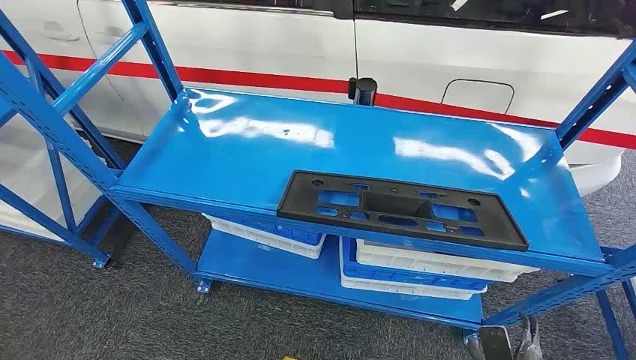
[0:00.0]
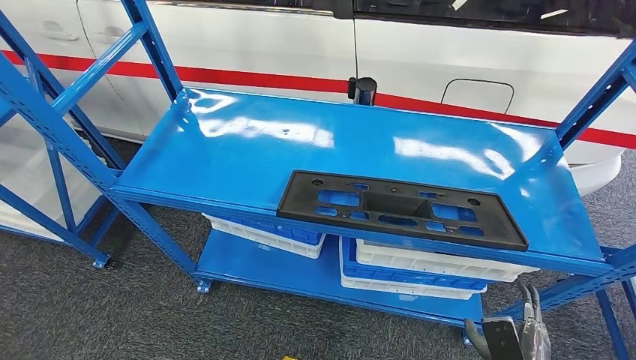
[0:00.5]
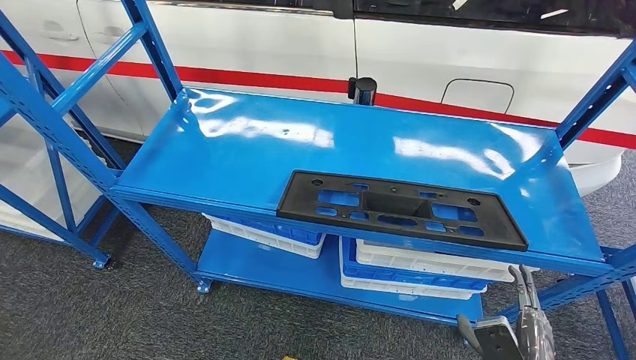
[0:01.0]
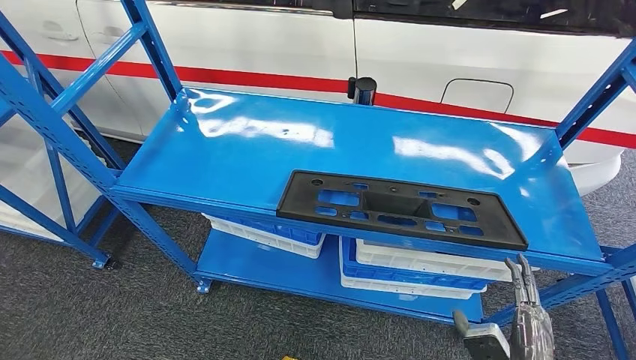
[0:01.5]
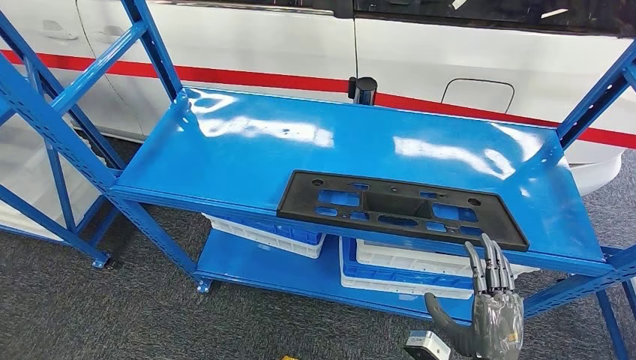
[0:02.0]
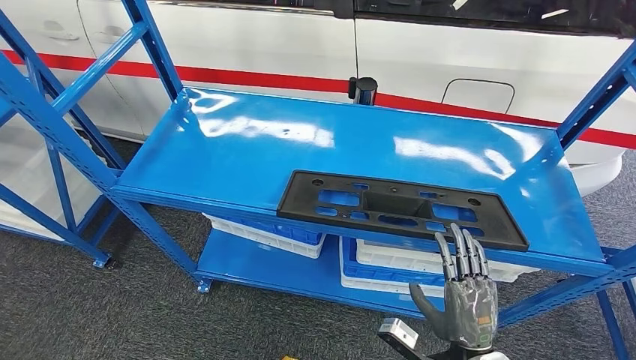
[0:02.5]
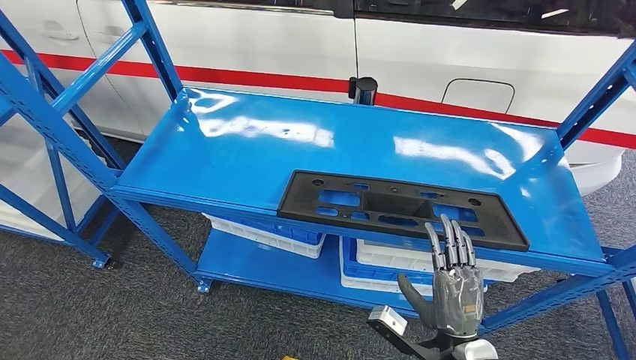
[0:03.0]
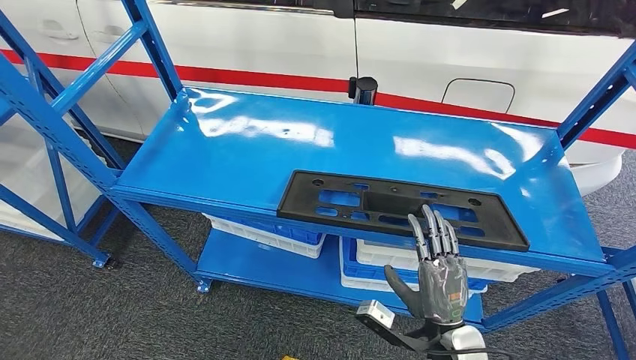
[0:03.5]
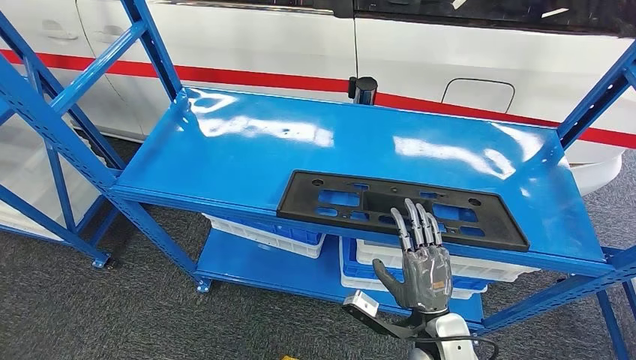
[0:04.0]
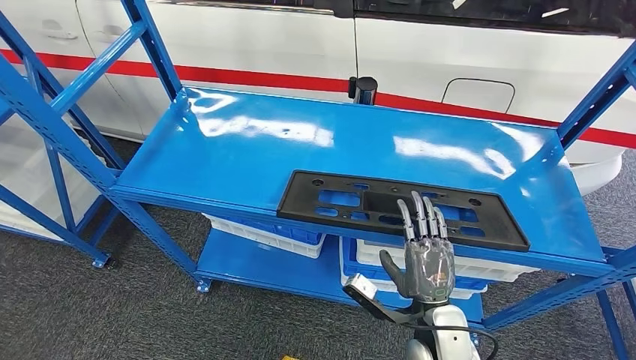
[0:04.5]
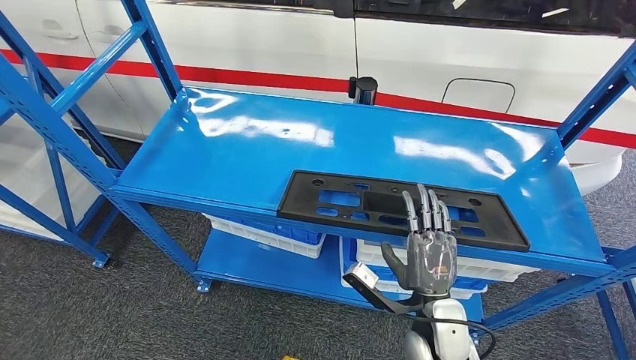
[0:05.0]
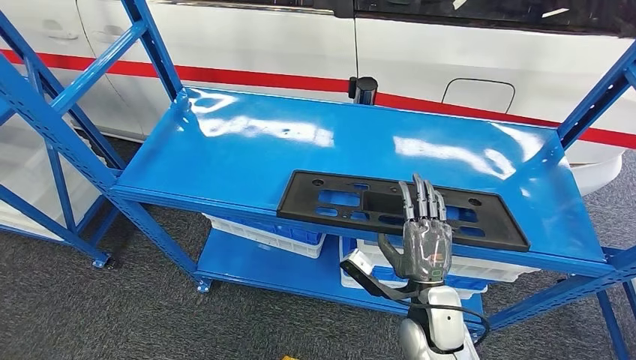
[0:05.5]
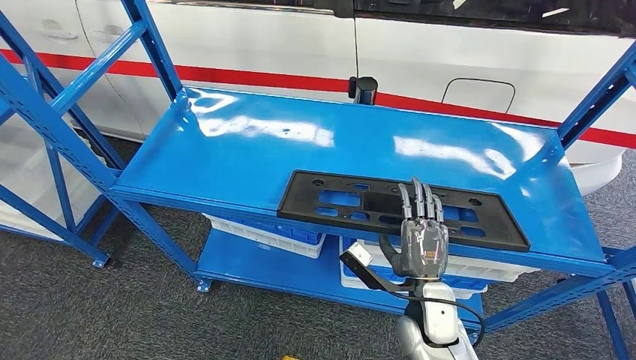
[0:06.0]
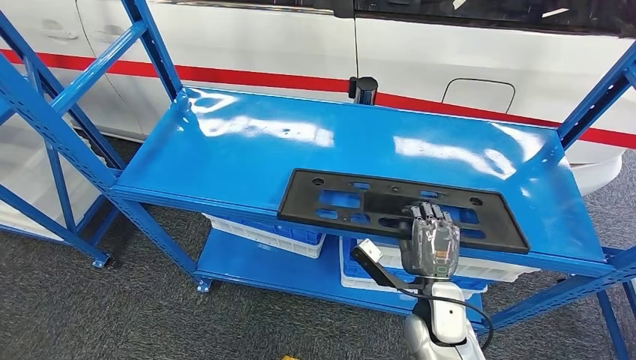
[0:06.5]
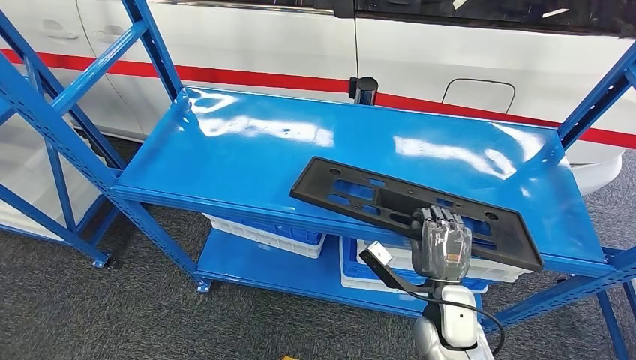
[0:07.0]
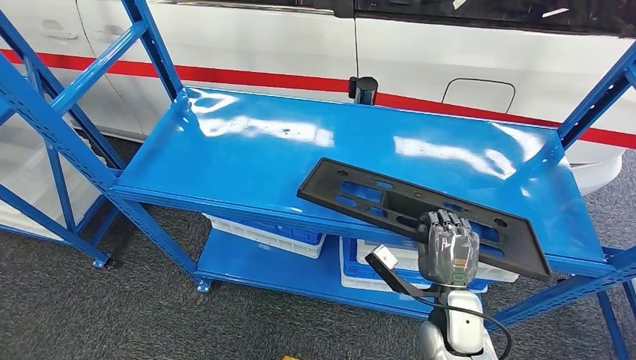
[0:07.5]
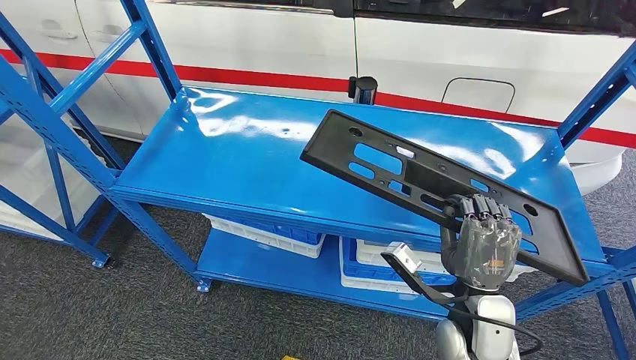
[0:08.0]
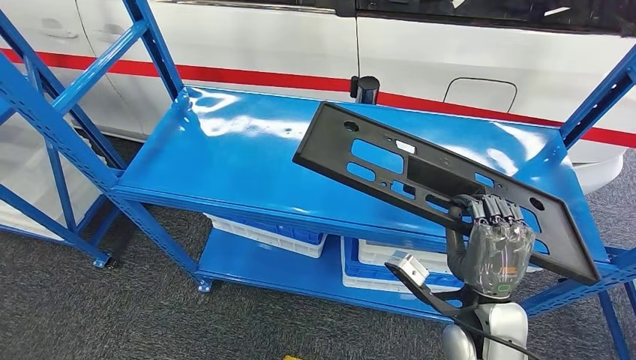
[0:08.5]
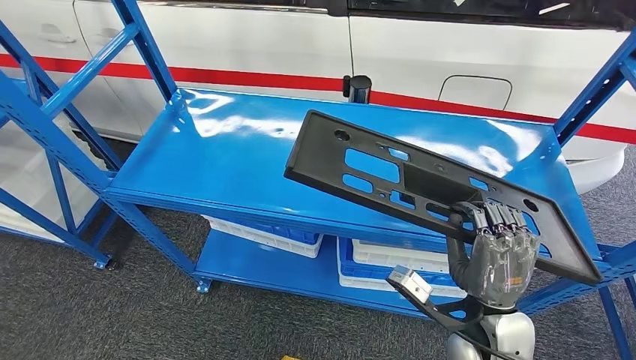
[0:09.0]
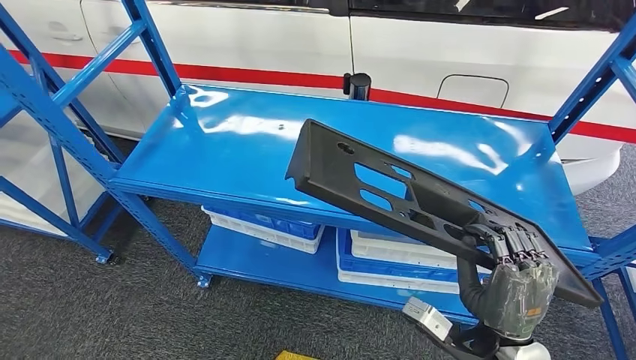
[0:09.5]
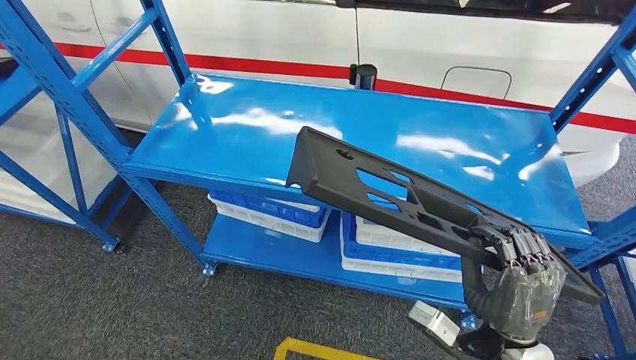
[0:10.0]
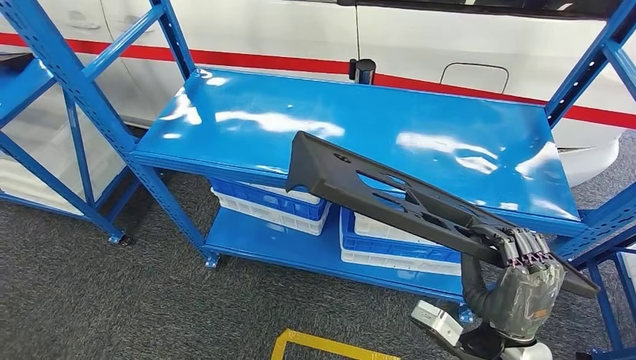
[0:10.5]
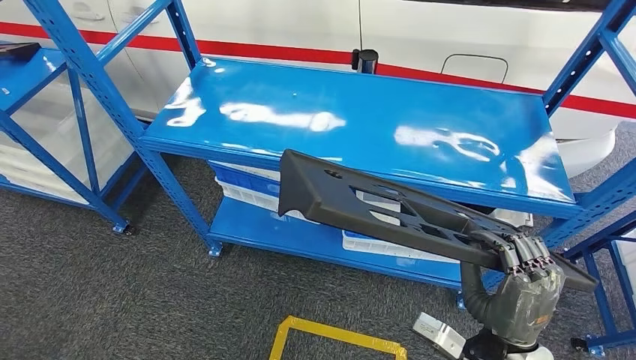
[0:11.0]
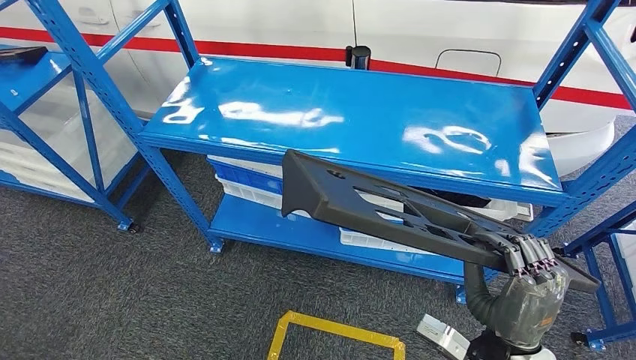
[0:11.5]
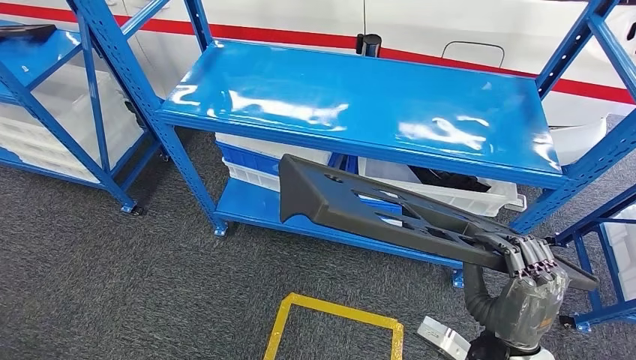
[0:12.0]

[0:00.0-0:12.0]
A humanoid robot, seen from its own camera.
Step, 0:00.0 to 0:11.5: Pick up the large material from the shelf.
0:02.0 to 0:04.0: The right hand travels forward and to the left by roughly 10 cm.
0:04.0 to 0:06.0: The right hand heads forward, covering some 5 cm.
0:06.0 to 0:08.0: The right hand is displaced upward by approximately 5 cm.

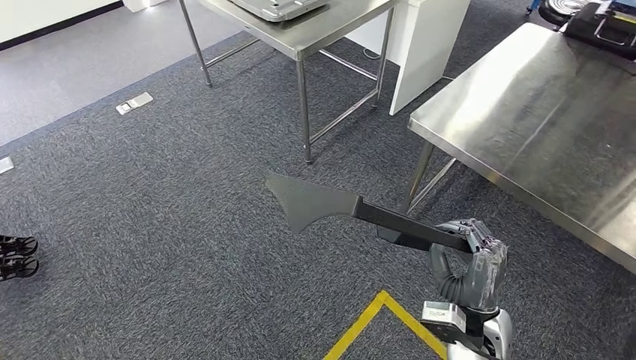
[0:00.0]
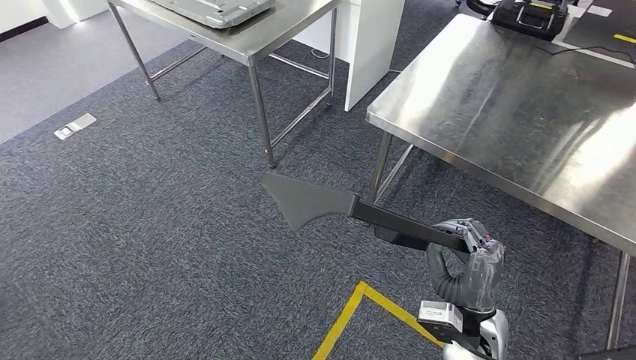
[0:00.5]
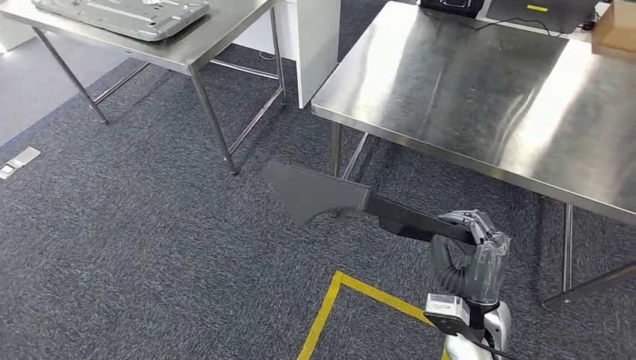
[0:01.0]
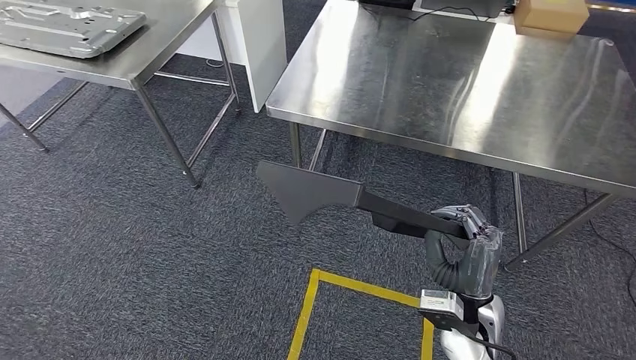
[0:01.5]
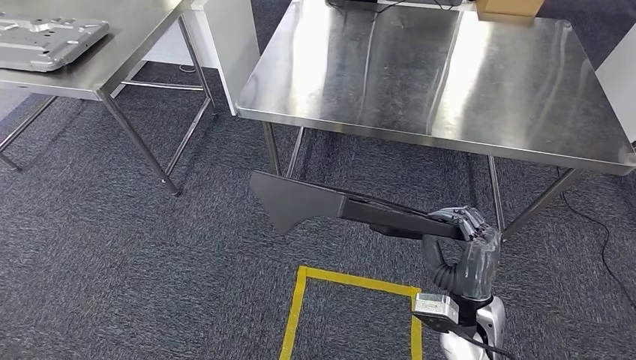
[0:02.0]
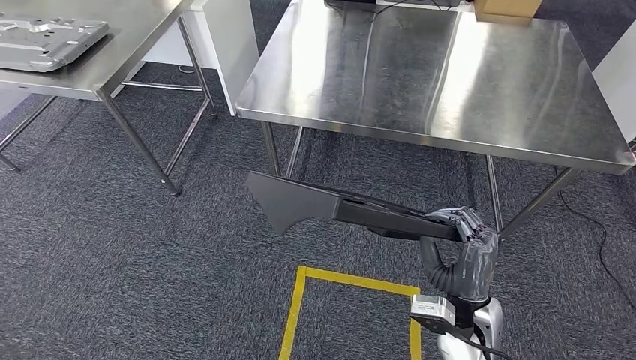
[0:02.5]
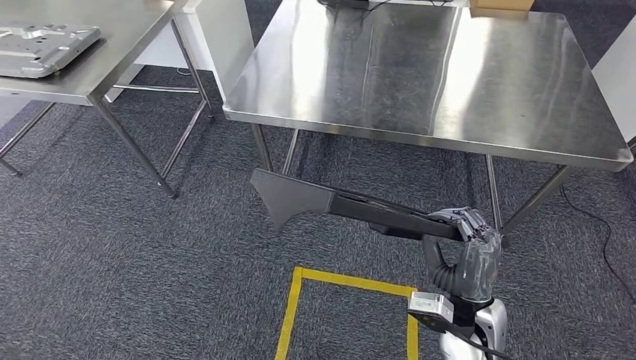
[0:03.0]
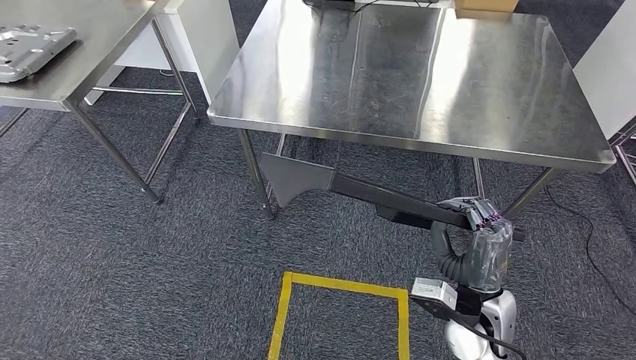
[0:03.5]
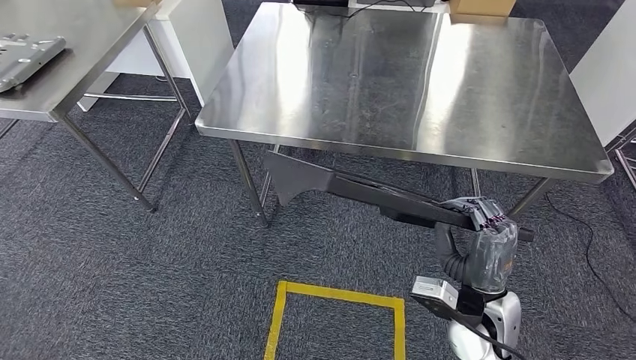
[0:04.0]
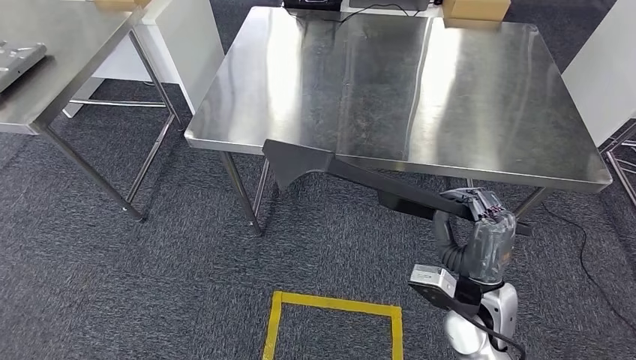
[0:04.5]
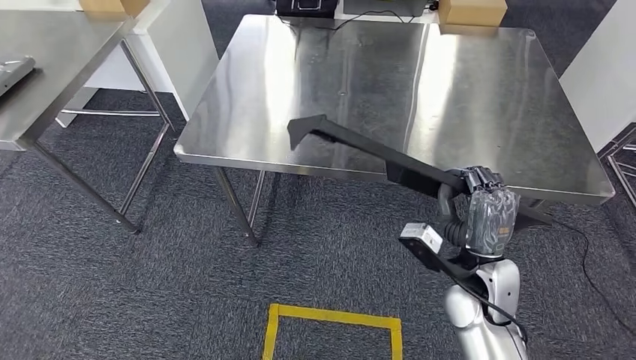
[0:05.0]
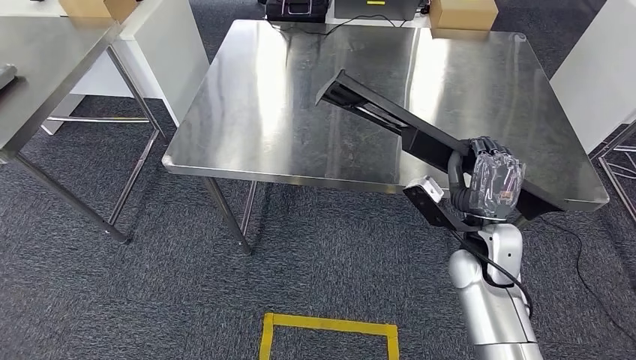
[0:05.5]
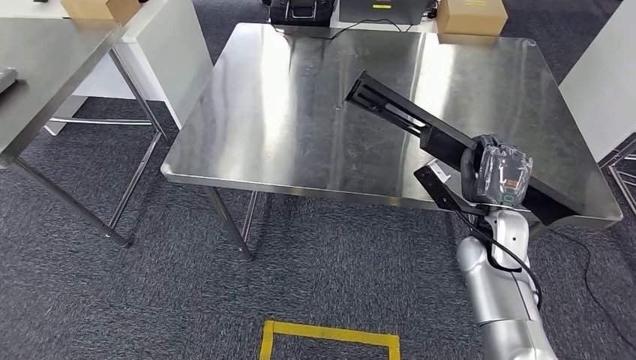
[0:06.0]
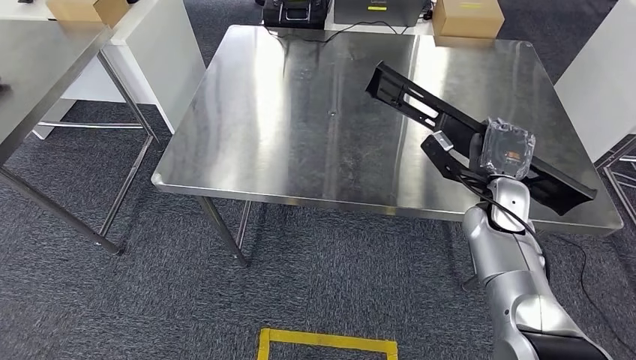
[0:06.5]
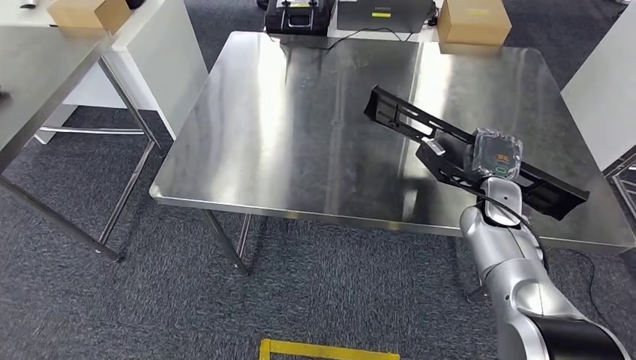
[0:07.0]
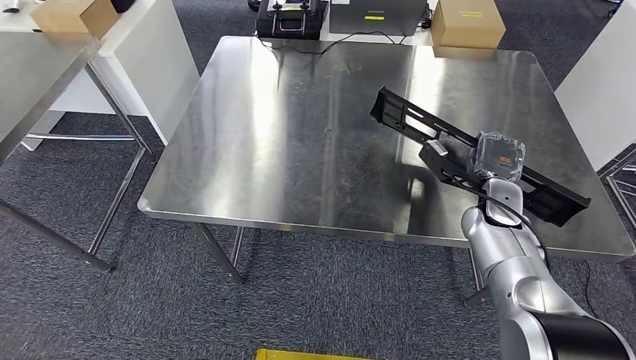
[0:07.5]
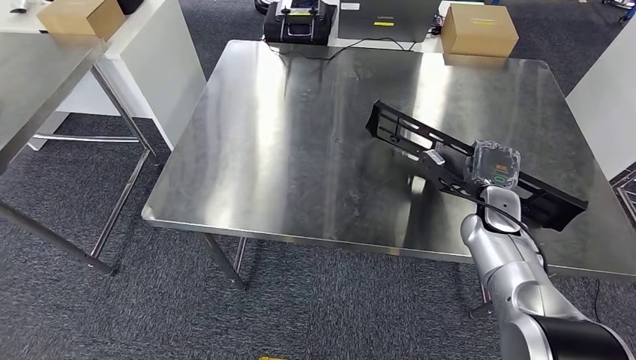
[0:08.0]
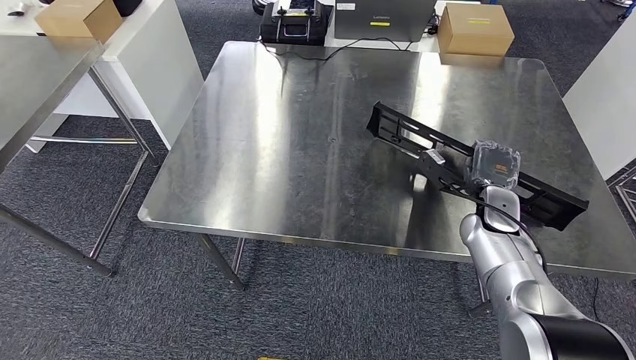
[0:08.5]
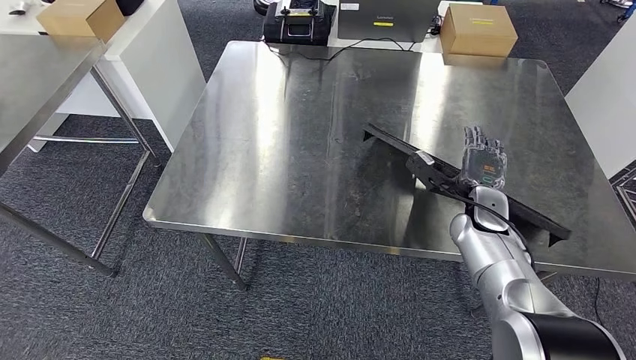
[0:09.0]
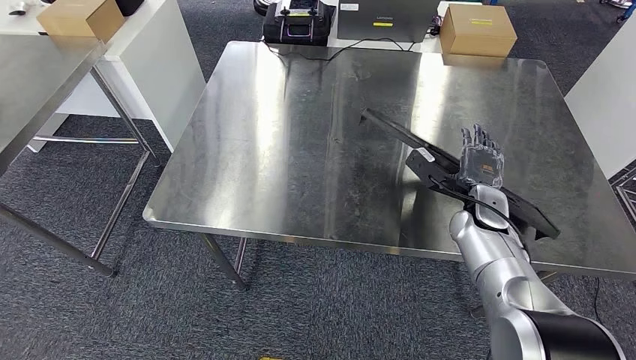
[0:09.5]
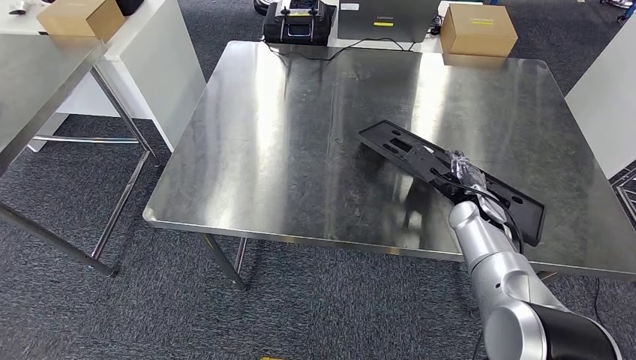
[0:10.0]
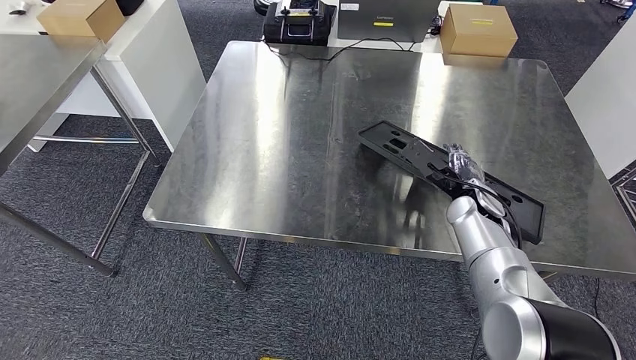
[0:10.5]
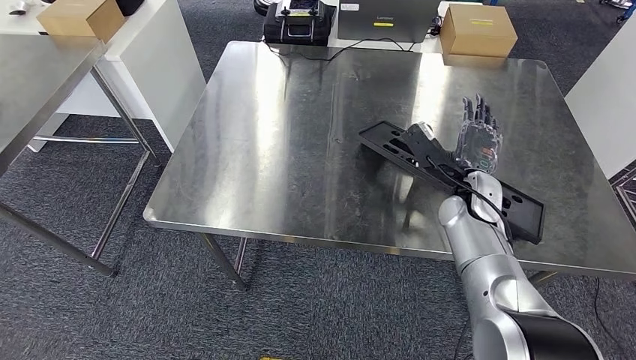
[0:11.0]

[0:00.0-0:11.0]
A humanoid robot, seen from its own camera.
Step, 0:00.0 to 0:03.5: Move the large material to the front of the workbench.
0:09.0 to 0:11.0: The right hand changes place by approximately 5 cm.
